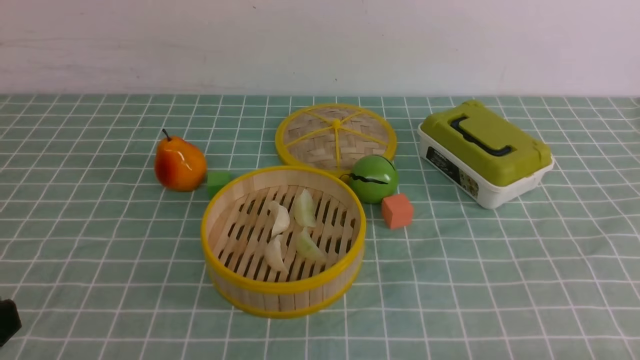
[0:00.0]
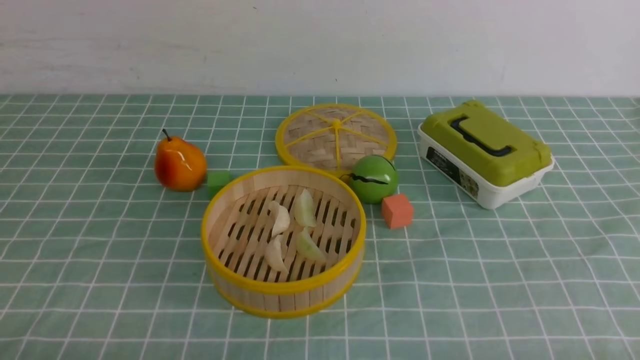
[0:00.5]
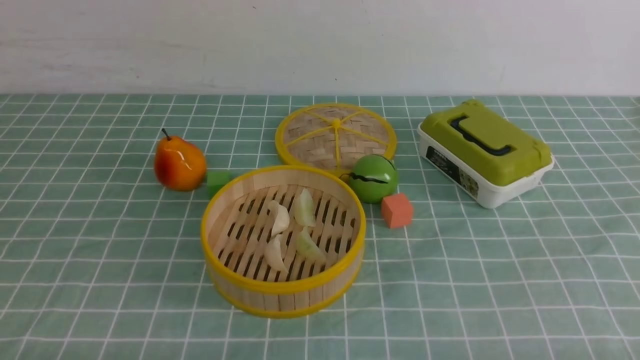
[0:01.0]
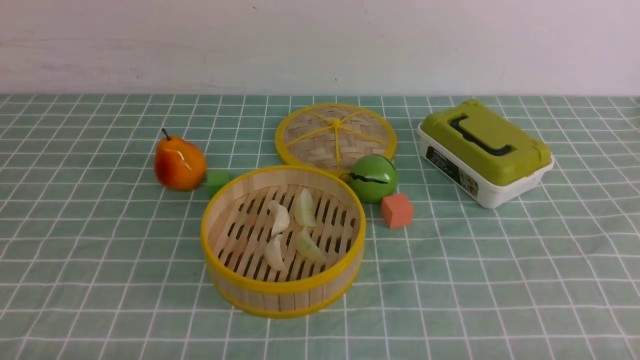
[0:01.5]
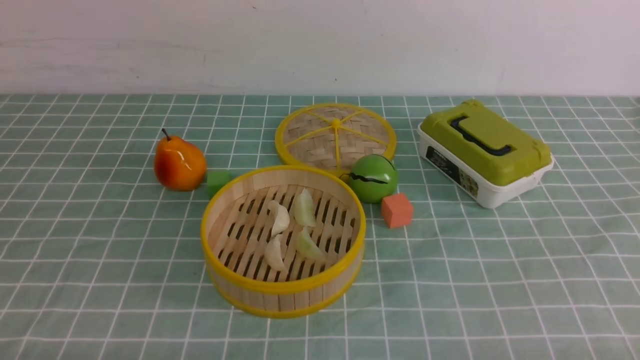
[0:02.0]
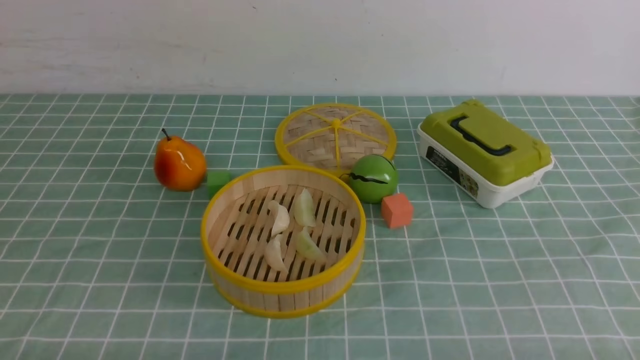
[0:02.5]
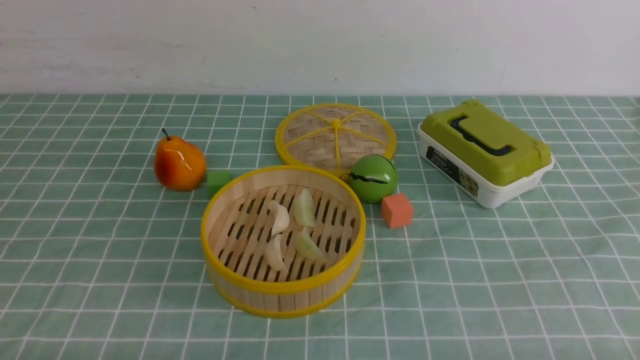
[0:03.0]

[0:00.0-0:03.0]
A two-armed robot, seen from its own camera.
Task of the whole recording: put the dumplings into the steamer on the table with the blue tablecloth.
0:01.5 to 0:03.0: The two grippers keep their place.
